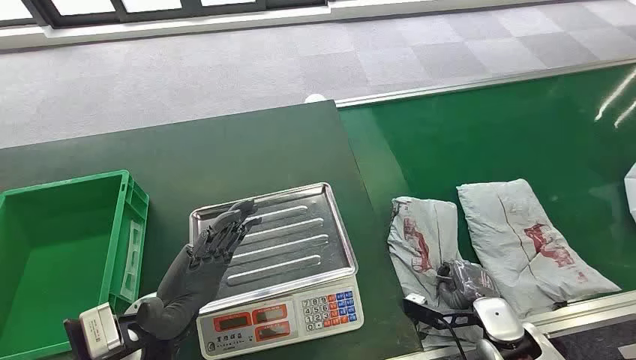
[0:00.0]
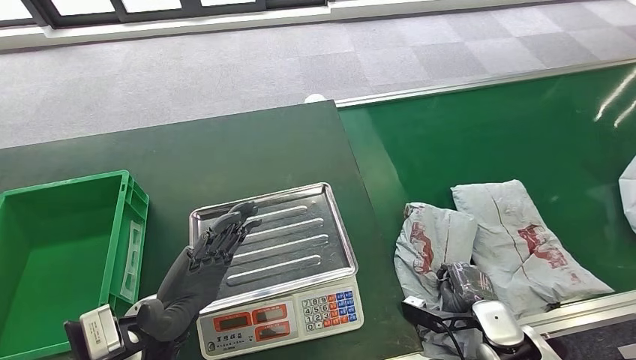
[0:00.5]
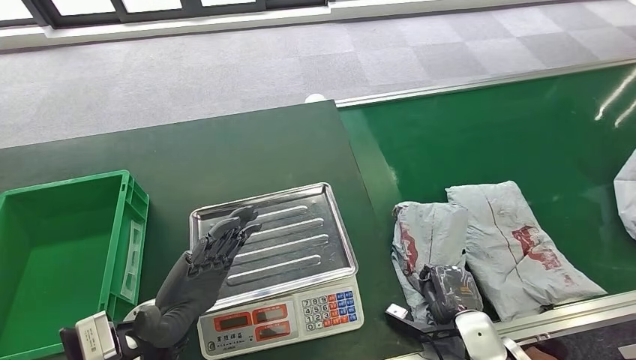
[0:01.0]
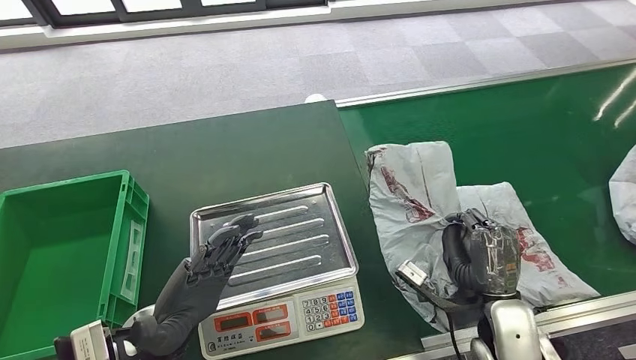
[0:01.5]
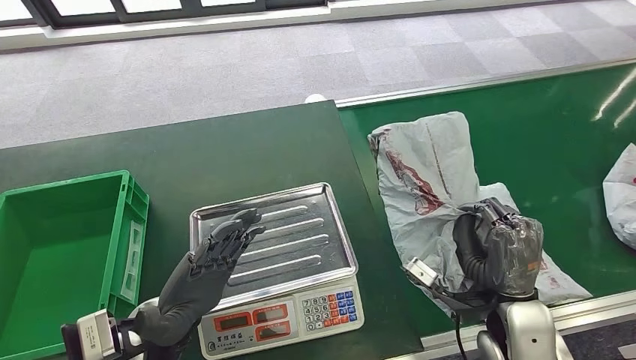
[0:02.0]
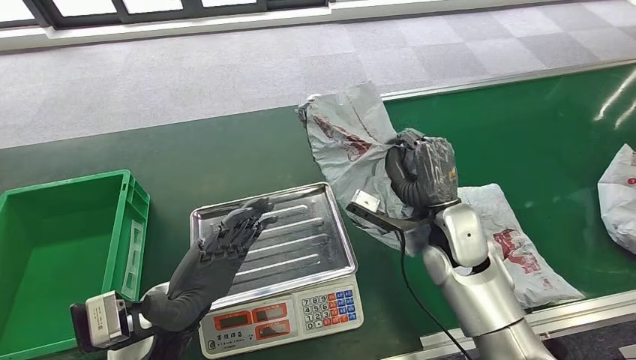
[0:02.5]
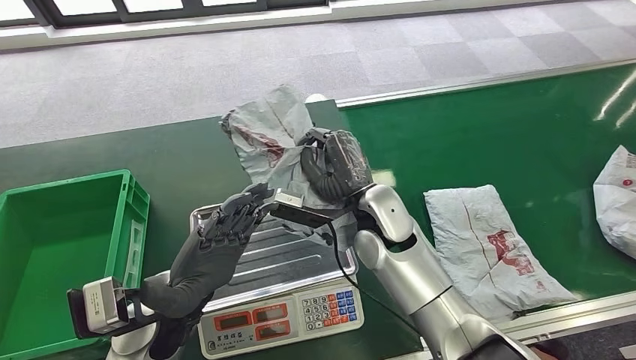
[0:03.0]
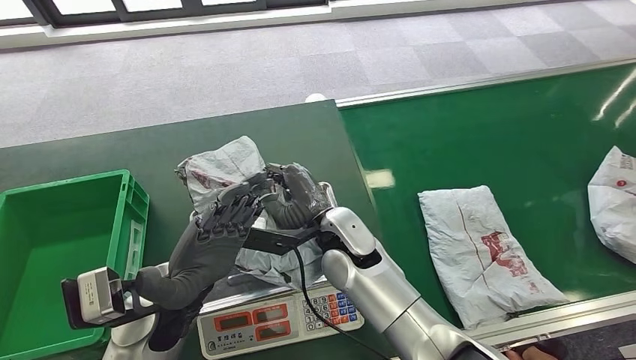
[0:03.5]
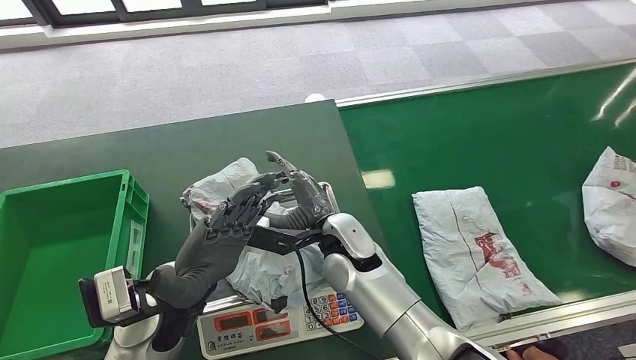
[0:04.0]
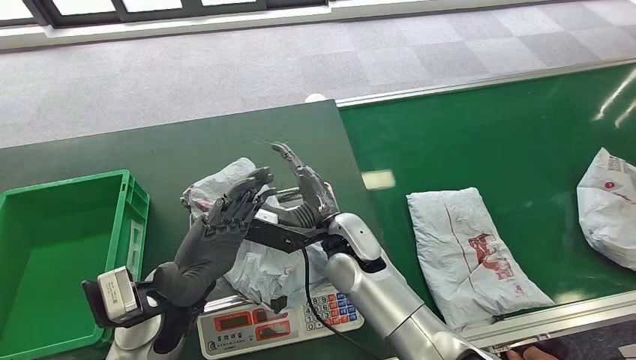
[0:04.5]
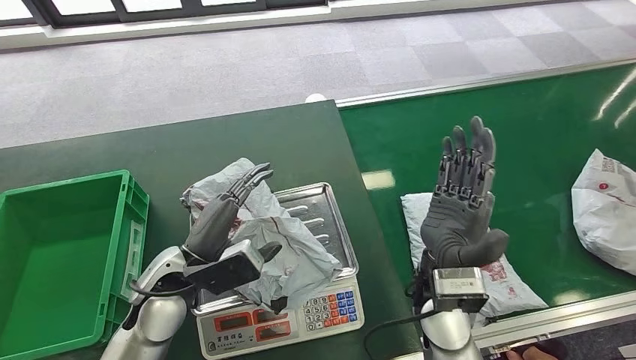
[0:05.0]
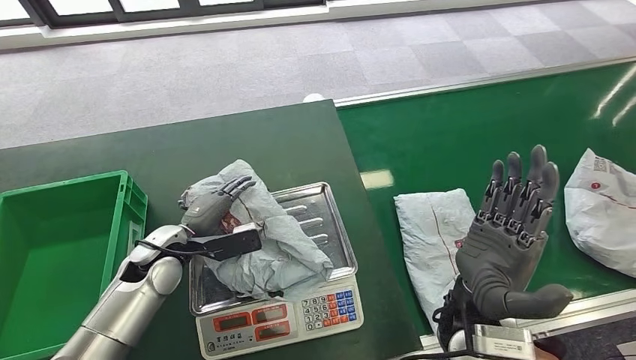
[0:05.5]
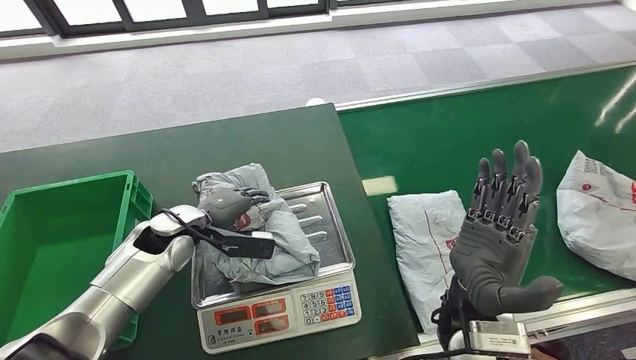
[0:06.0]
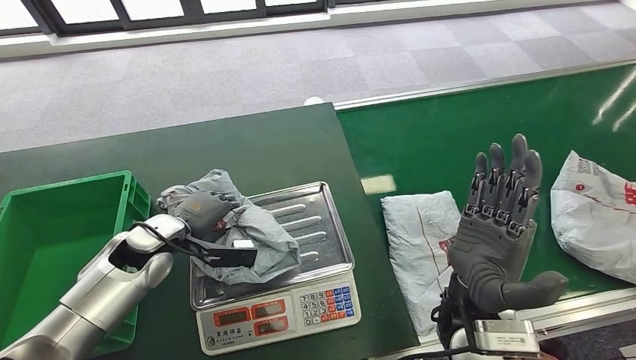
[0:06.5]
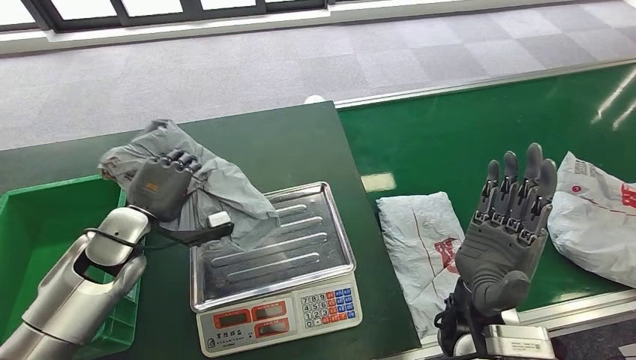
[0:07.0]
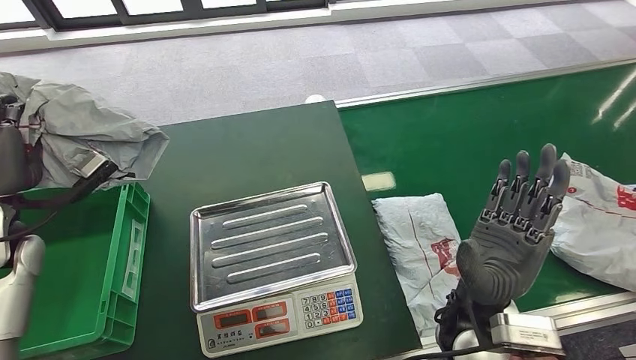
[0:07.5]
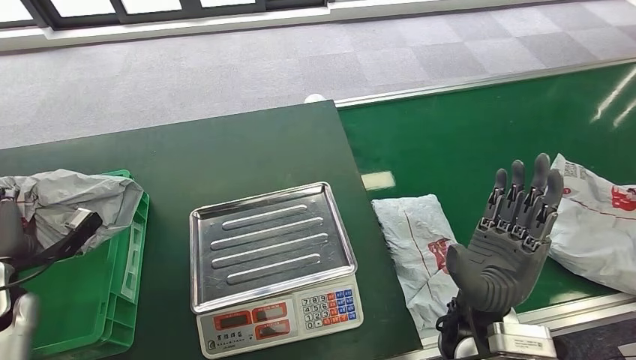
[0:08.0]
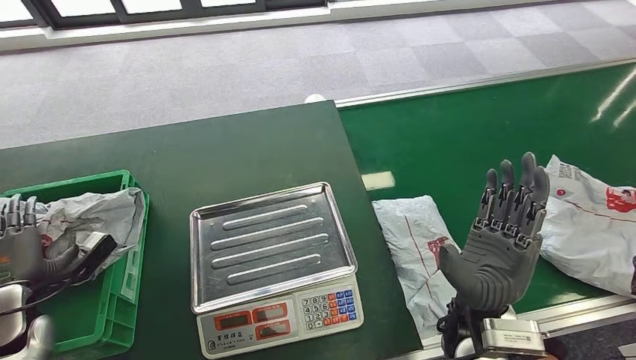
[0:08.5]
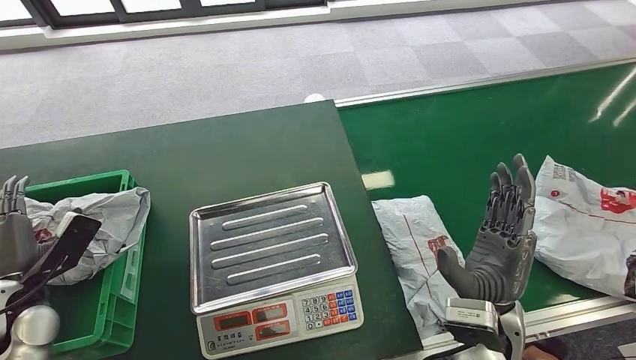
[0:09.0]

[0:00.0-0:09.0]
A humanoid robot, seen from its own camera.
Step, 0:00.0 to 0:01.5: Take the parcel off the conveyor belt.
Step, 0:02.0 to 0:04.5: Place the parcel onto the inbound machine.
Step, 0:05.0 to 0:07.0: Pick up the parcel from the inbound machine.
Step, 0:07.5 to 0:09.0: Put the parcel inside the courier box.
